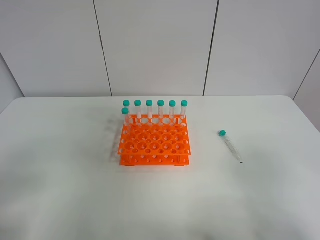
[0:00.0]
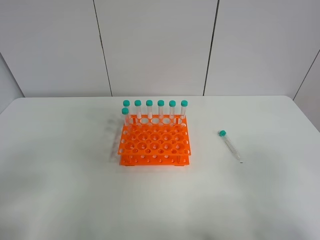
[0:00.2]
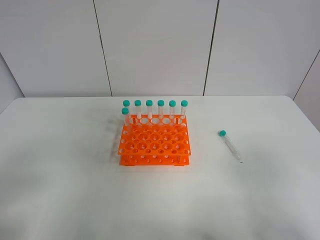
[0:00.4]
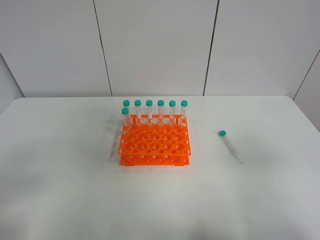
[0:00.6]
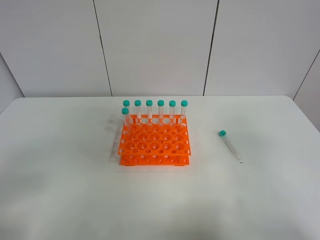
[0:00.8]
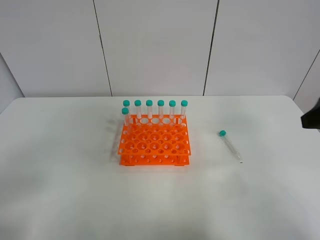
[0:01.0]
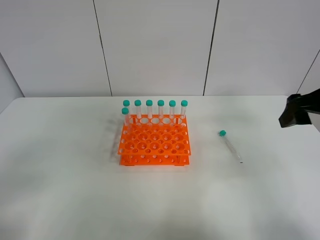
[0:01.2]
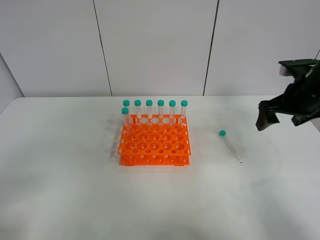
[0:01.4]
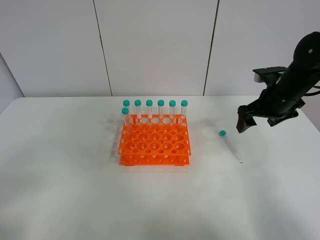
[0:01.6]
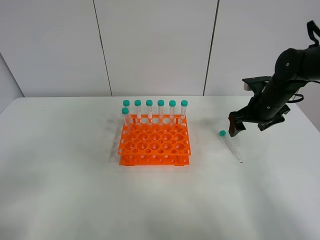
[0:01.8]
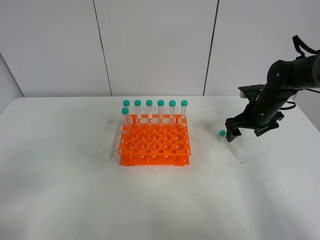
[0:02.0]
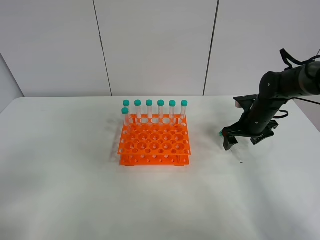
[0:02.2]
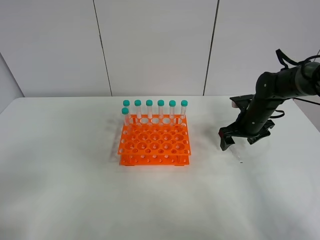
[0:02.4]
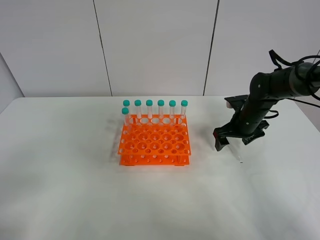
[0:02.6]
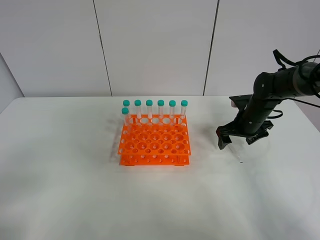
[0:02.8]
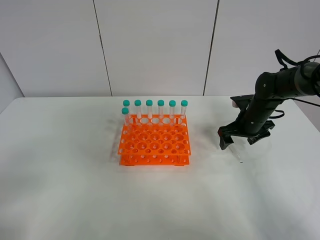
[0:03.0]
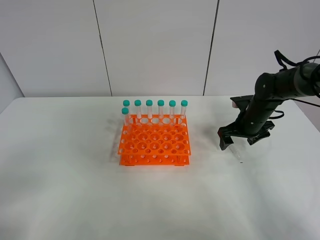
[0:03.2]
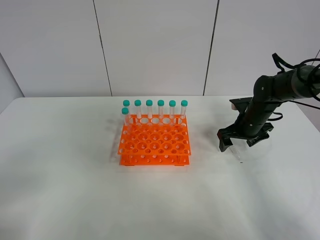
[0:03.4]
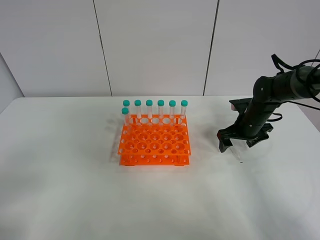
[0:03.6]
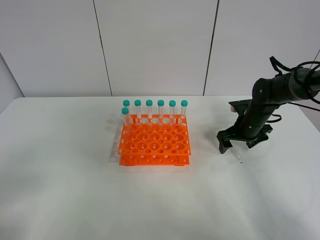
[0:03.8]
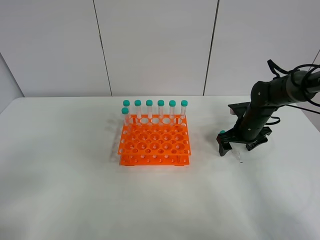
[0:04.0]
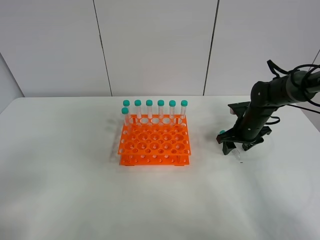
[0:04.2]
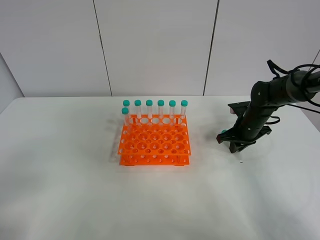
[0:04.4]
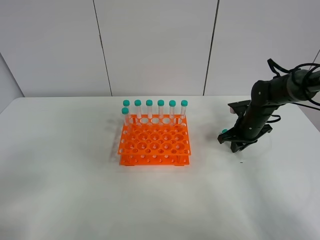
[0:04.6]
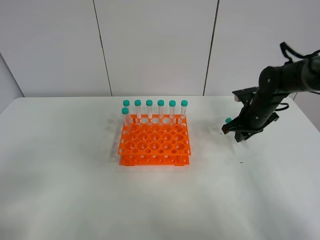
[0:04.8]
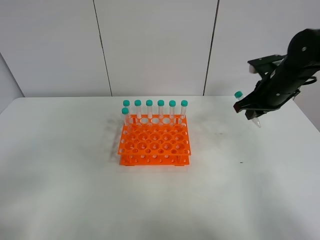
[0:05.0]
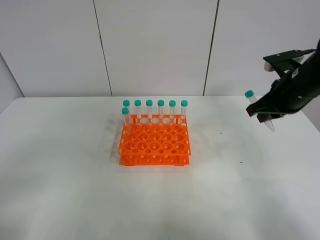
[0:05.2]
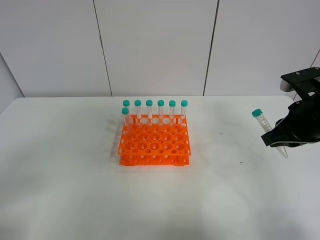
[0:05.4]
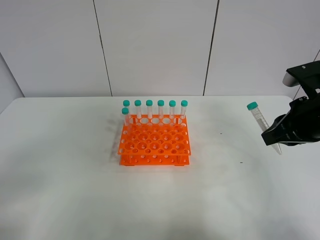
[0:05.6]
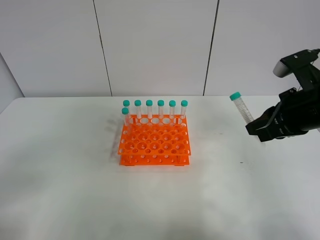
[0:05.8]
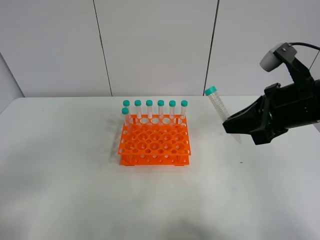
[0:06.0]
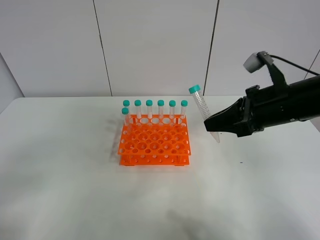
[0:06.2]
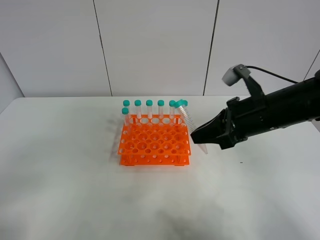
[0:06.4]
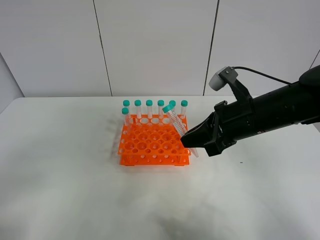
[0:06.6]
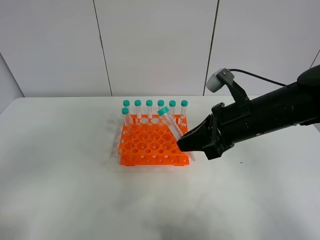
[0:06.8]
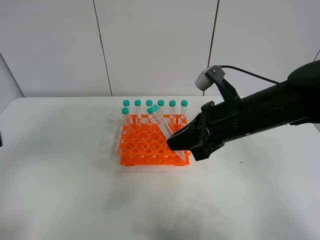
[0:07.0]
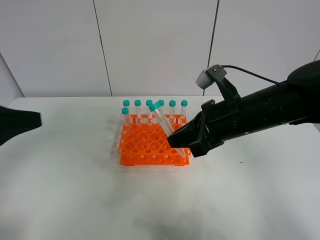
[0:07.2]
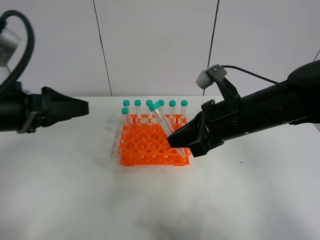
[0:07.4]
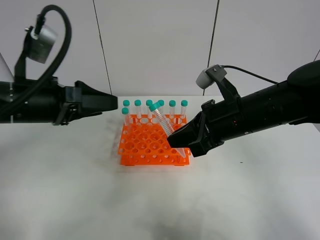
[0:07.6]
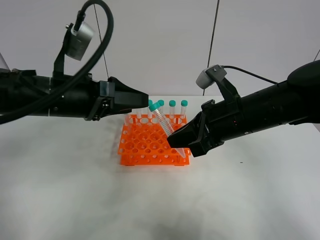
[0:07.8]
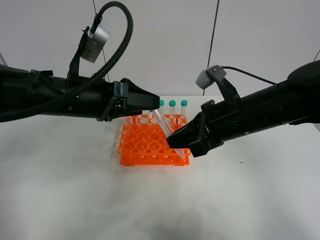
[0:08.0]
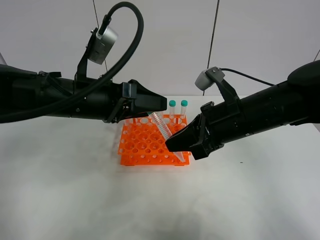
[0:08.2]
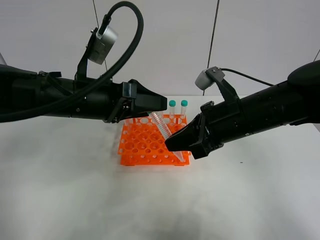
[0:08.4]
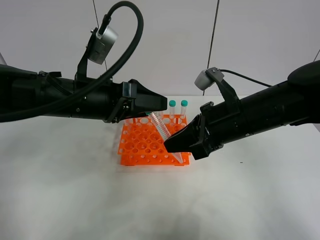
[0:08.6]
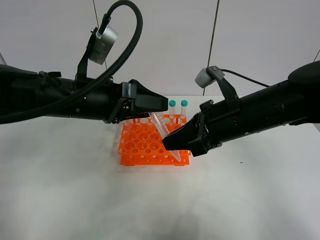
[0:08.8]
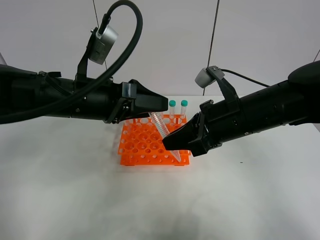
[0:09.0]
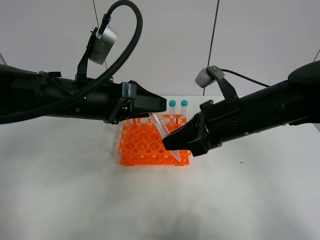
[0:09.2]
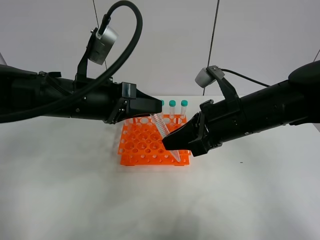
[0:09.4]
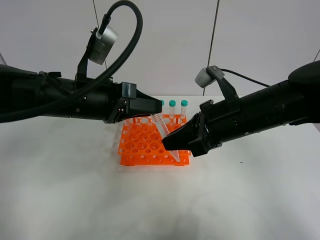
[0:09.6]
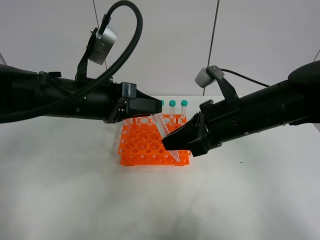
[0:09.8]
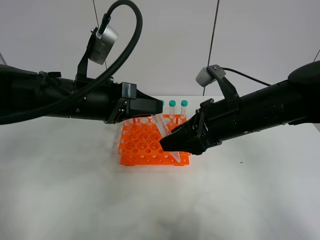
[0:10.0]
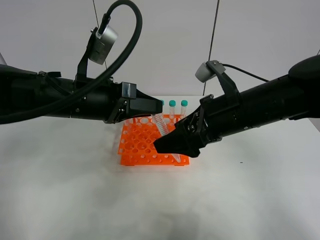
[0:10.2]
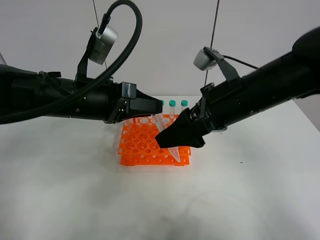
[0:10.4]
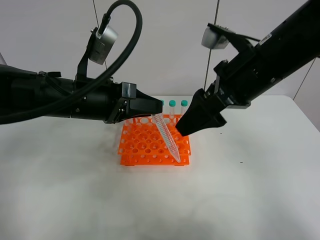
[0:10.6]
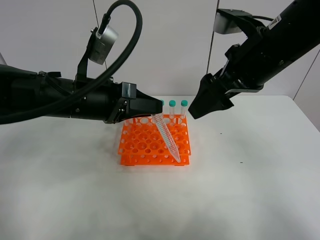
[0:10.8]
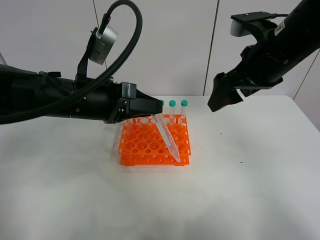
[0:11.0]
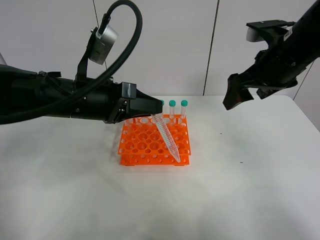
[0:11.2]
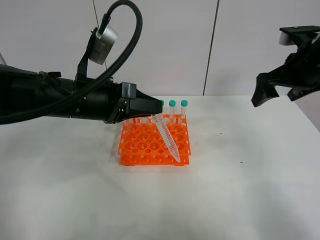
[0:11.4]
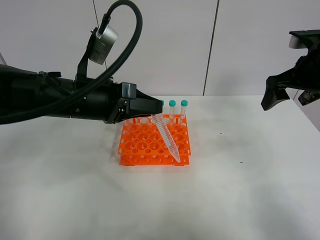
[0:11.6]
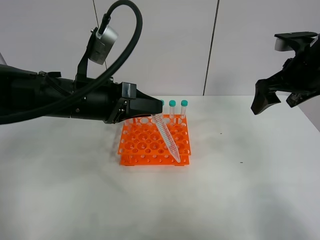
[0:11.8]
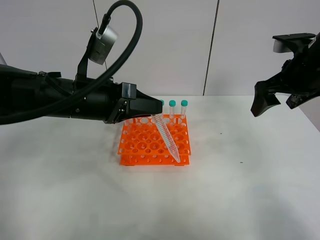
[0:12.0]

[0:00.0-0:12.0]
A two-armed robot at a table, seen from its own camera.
Task of the whole recording: Put the test tube on the table back onto the test tube rack.
Step, 0:00.0 to 0:04.4: Pick up the test tube with the right gripper.
Step, 0:04.6 to 0:10.0: Move the test tube from the right gripper to the left gripper.
0:00.0 to 0:01.6: The right gripper goes some 35 cm forward.
0:01.6 to 0:03.0: The right gripper moves downward, approximately 10 cm.
0:03.0 to 0:04.4: The right gripper closes.
0:04.4 to 0:06.0: The right gripper goes about 25 cm upward and backward.
0:06.0 to 0:07.6: The left gripper goes roughly 25 cm forward and to the right. The right gripper goes approximately 10 cm to the left.
0:07.6 to 0:09.0: The left gripper is displaced to the right by approximately 5 cm.
0:09.0 to 0:10.4: The left gripper closes its fingers. Meanwhile the right gripper opens its fingers.
0:10.4 to 0:12.0: The right gripper goes about 15 cm to the right and forward.

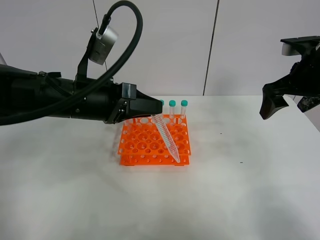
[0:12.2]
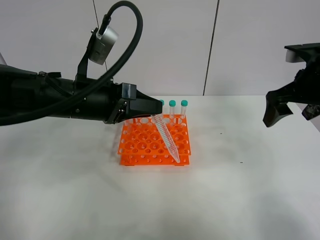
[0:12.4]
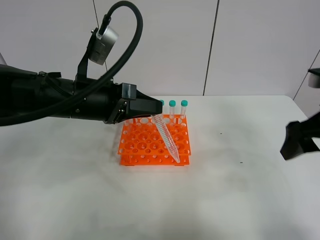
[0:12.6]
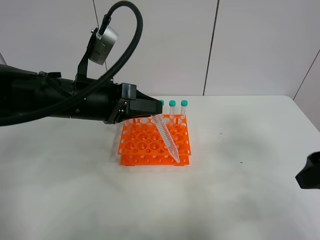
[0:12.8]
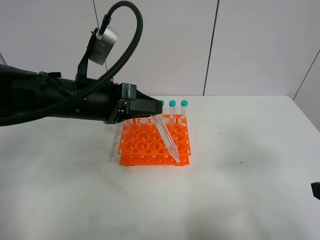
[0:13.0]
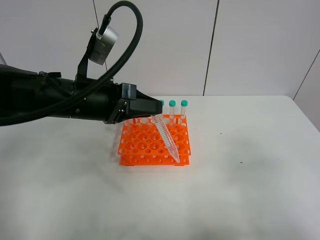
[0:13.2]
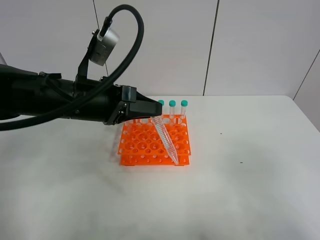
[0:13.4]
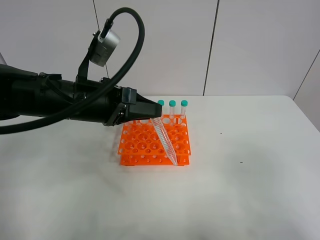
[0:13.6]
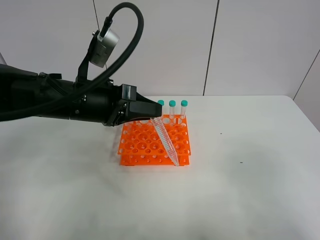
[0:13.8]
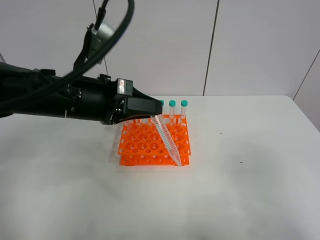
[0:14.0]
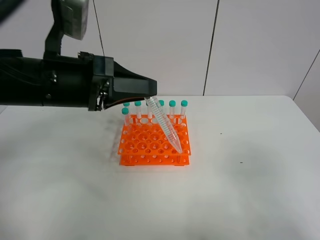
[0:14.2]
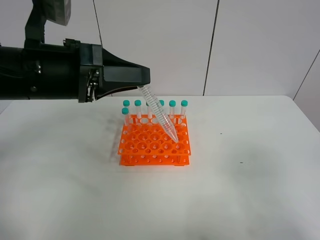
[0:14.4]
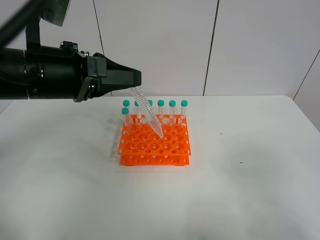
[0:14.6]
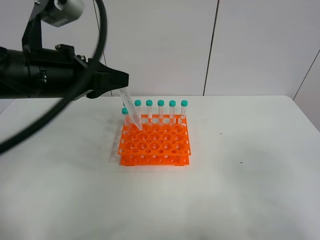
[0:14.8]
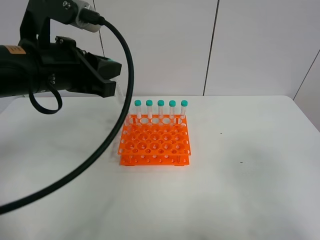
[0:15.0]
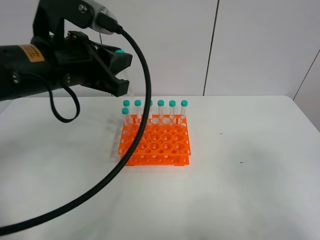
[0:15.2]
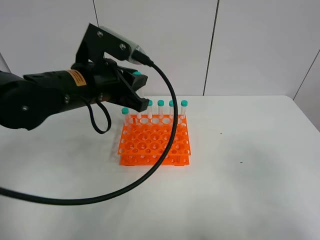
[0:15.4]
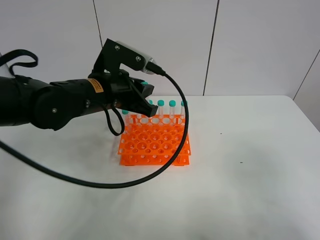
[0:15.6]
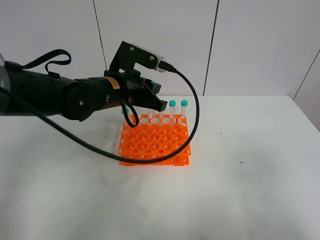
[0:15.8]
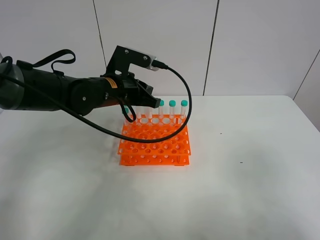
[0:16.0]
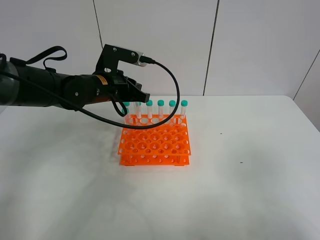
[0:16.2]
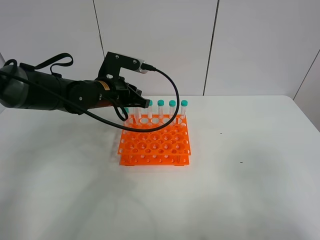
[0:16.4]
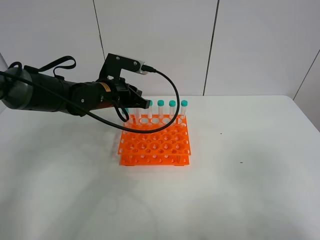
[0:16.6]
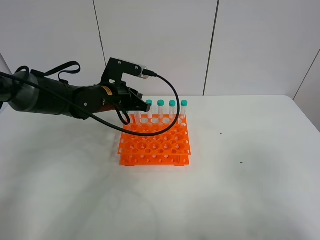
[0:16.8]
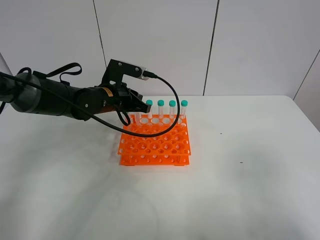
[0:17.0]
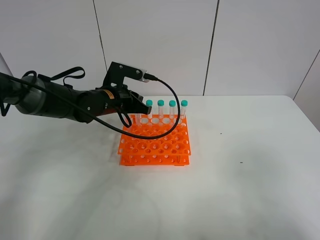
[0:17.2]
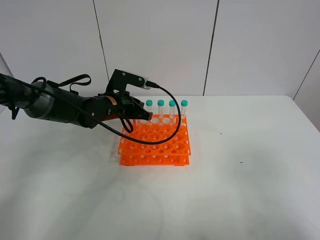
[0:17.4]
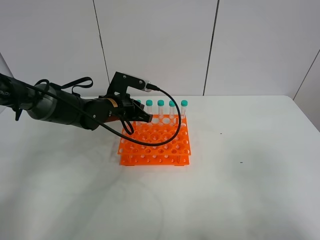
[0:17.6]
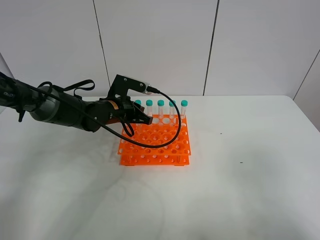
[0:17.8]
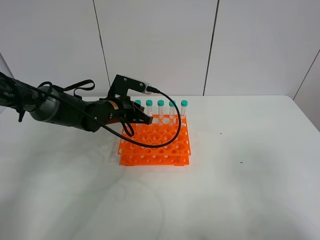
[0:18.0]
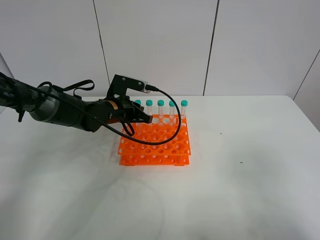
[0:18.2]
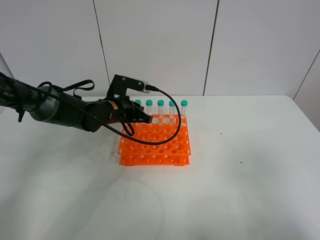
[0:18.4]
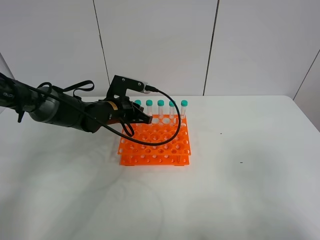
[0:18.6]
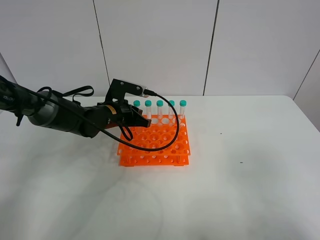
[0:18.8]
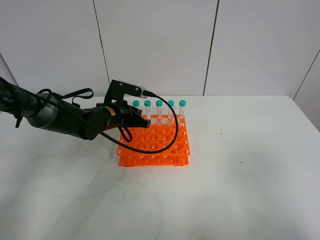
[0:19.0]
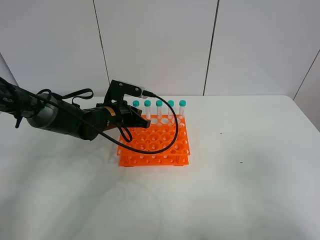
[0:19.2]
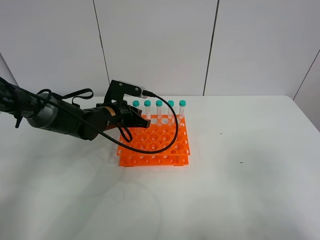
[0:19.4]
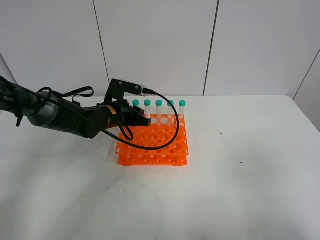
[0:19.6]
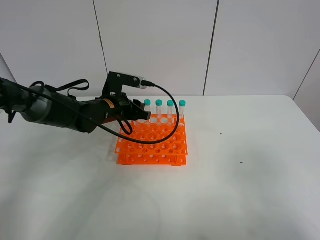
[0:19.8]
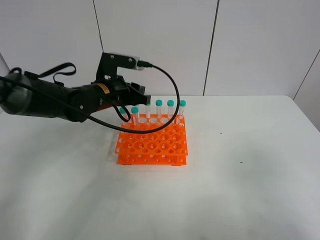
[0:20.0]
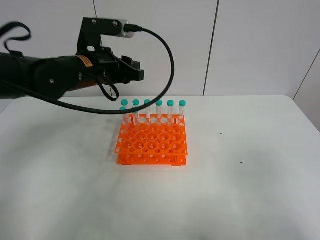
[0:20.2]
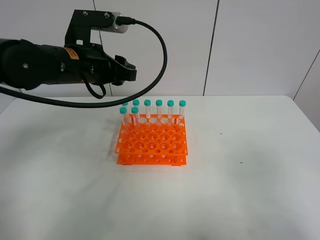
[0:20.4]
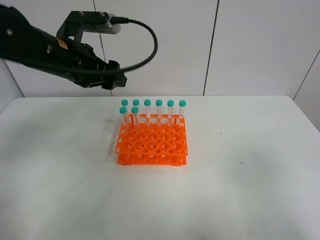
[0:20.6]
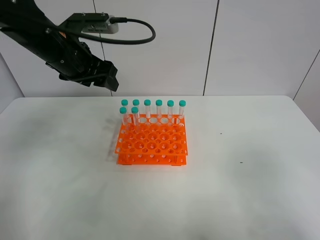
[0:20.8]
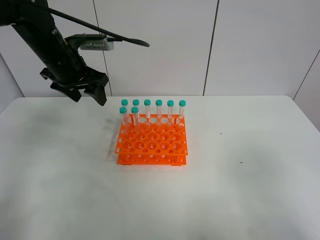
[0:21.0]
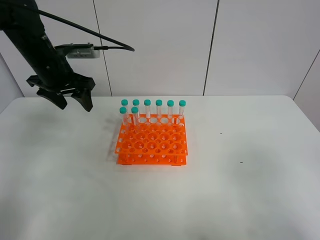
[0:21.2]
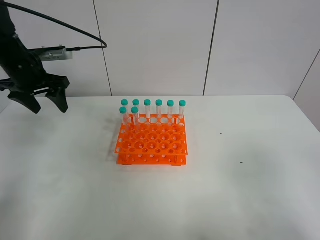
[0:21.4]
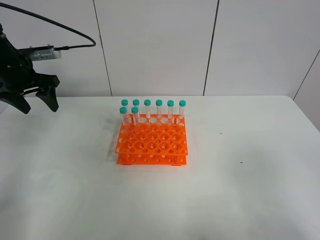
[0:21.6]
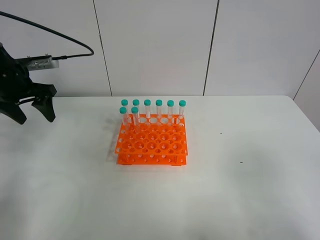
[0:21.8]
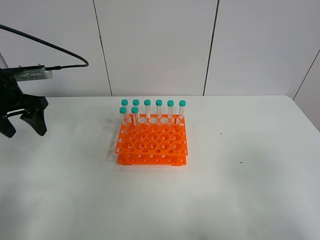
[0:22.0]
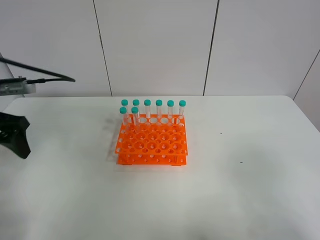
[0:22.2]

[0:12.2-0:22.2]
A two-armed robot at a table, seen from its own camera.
Task of the whole recording: Put the test tube on the table back onto the test tube rack.
Step, 0:12.2 to 0:19.6: Place the test tube on the test tube rack with the left gripper.
0:12.2 to 0:13.6: The right gripper is displaced backward by approximately 30 cm.
0:13.6 to 0:15.0: The left gripper goes roughly 10 cm upward.
0:15.0 to 0:16.4: The left gripper heads forward and downward, covering roughly 20 cm.
0:16.4 to 0:18.0: The left gripper moves downward, approximately 5 cm.
0:18.0 to 0:19.4: There are only small adjustments of the grippers.
0:19.4 to 0:20.8: The left gripper moves upward, about 20 cm, and opens.
0:20.8 to 0:22.2: The left gripper is displaced to the left and backward by some 20 cm.
